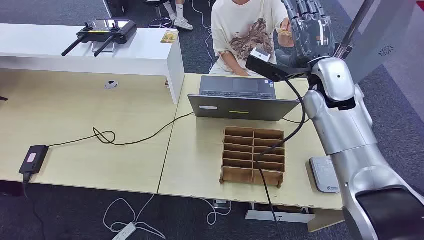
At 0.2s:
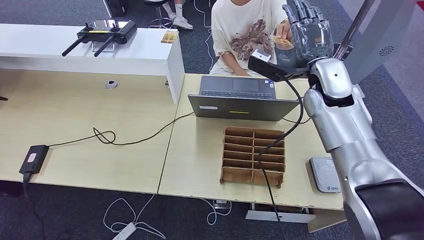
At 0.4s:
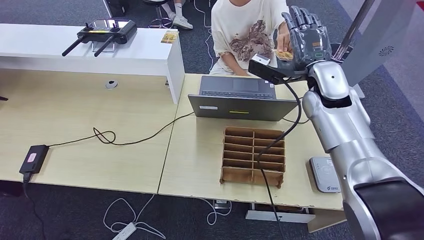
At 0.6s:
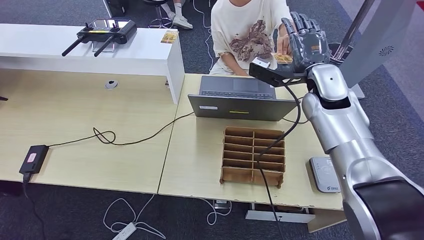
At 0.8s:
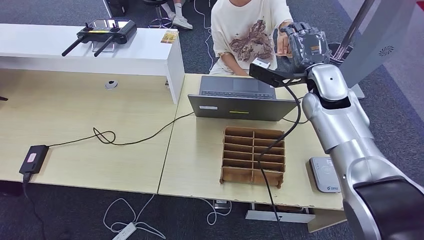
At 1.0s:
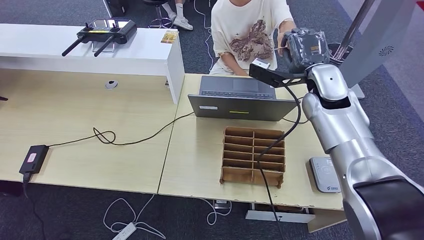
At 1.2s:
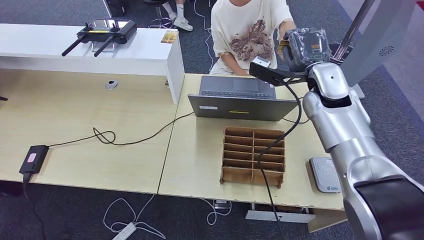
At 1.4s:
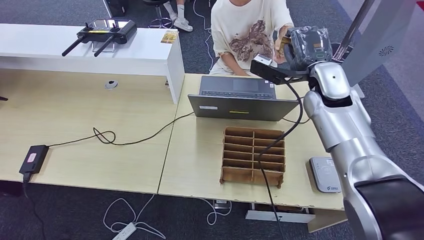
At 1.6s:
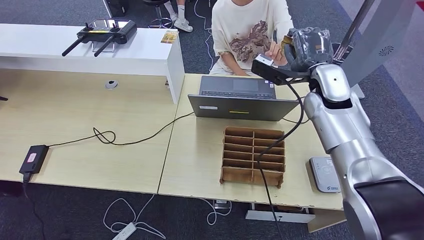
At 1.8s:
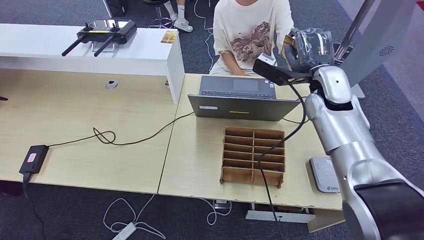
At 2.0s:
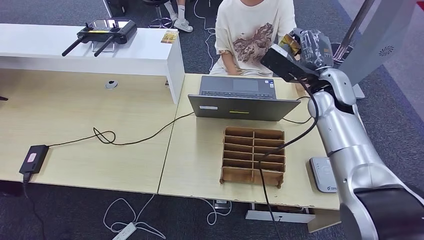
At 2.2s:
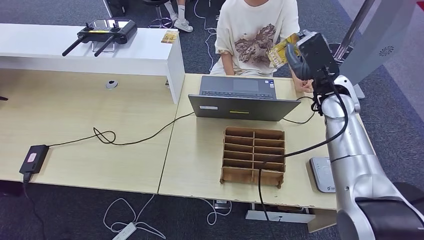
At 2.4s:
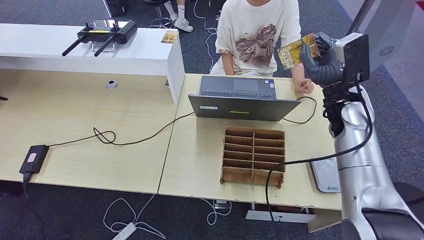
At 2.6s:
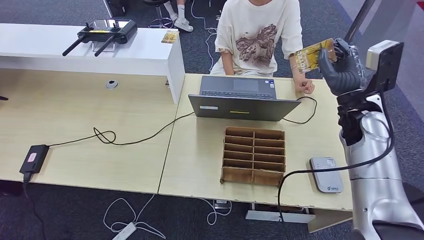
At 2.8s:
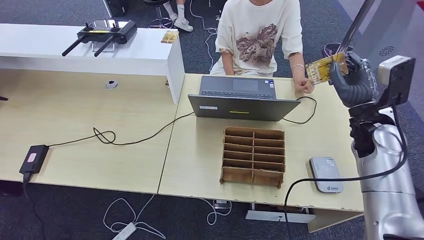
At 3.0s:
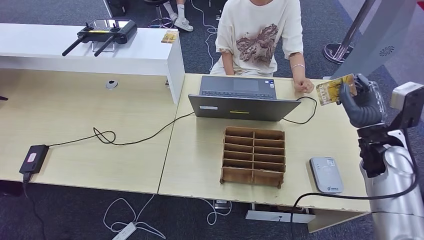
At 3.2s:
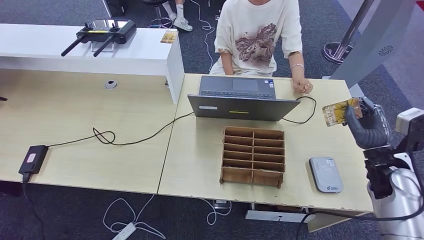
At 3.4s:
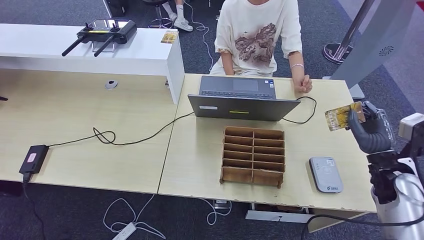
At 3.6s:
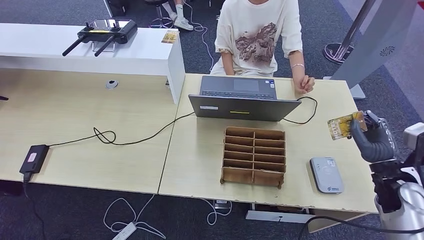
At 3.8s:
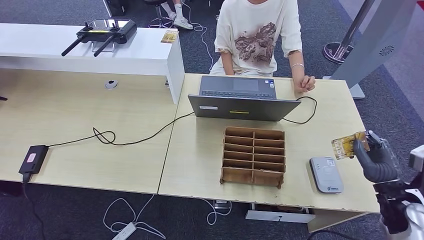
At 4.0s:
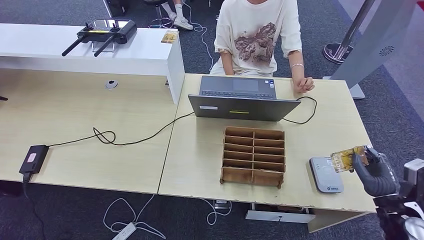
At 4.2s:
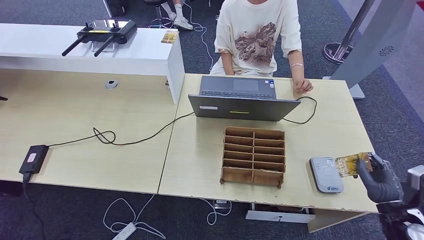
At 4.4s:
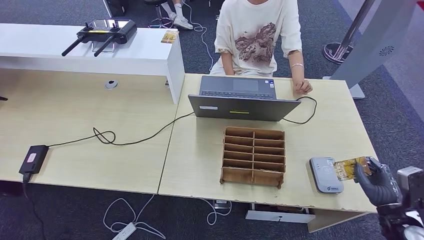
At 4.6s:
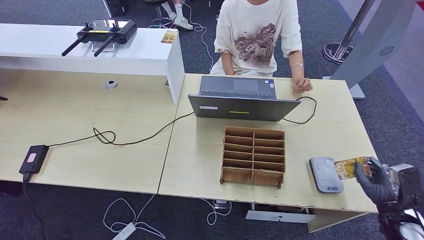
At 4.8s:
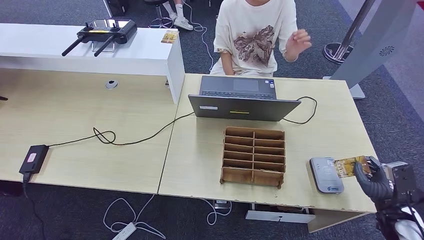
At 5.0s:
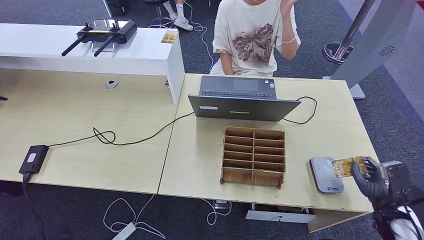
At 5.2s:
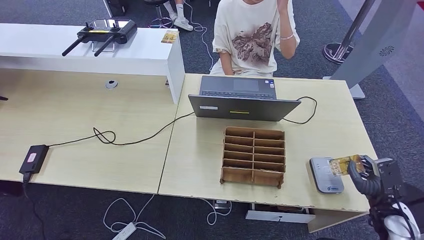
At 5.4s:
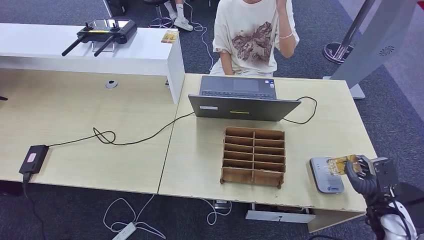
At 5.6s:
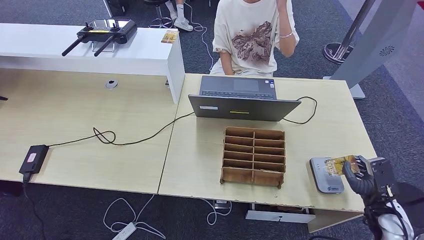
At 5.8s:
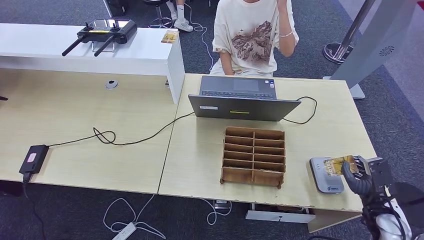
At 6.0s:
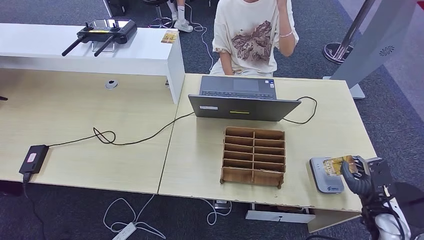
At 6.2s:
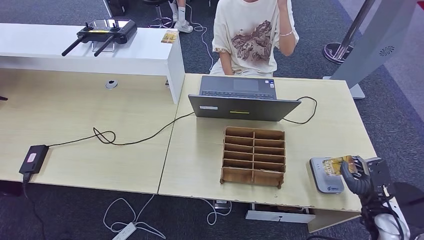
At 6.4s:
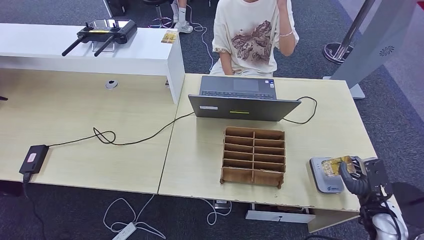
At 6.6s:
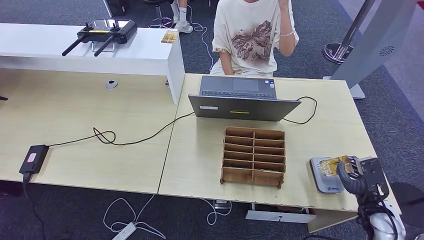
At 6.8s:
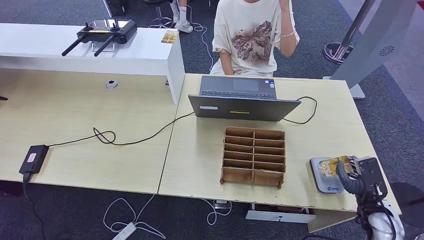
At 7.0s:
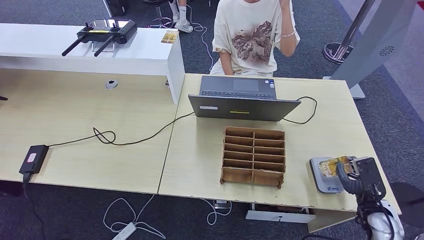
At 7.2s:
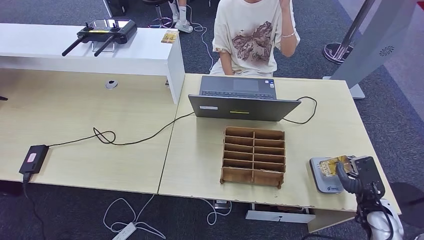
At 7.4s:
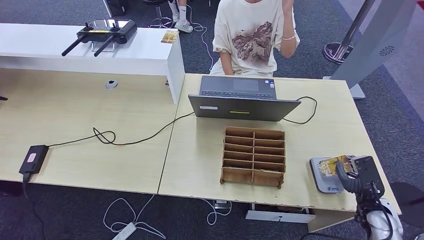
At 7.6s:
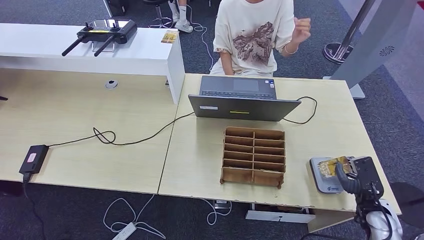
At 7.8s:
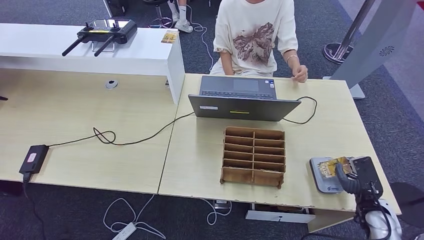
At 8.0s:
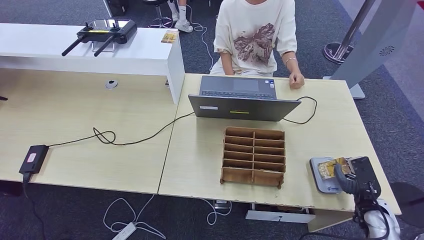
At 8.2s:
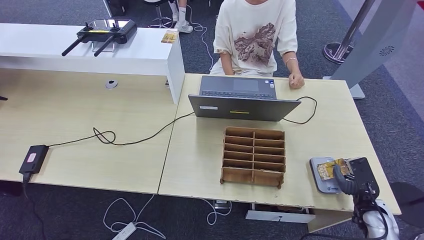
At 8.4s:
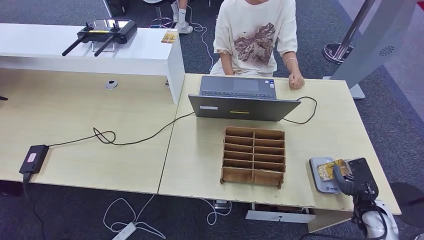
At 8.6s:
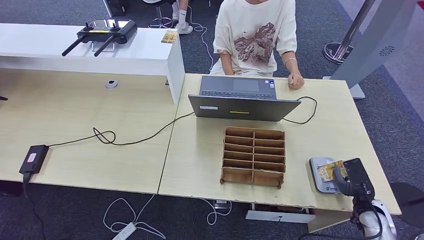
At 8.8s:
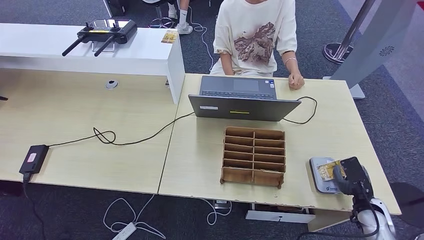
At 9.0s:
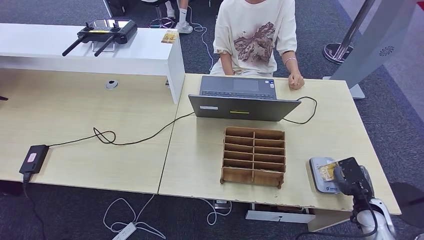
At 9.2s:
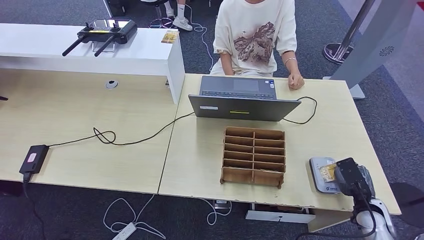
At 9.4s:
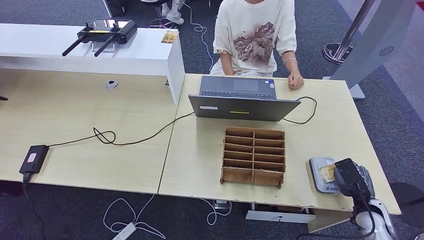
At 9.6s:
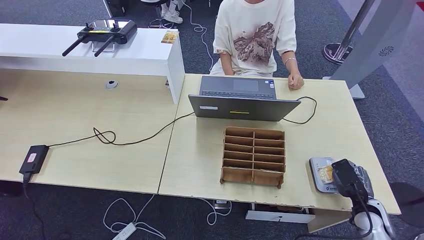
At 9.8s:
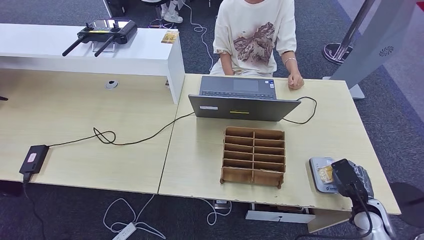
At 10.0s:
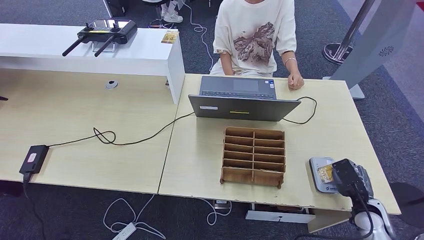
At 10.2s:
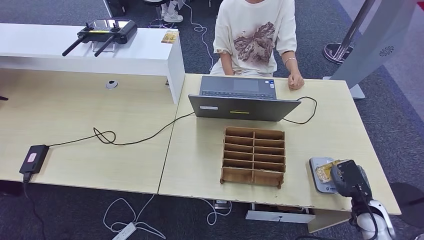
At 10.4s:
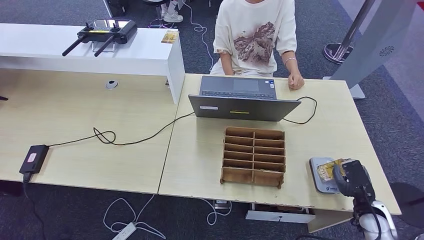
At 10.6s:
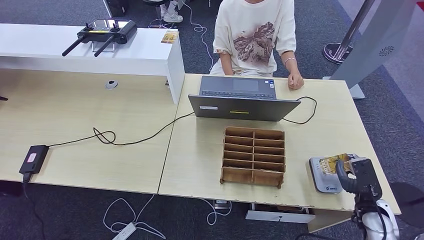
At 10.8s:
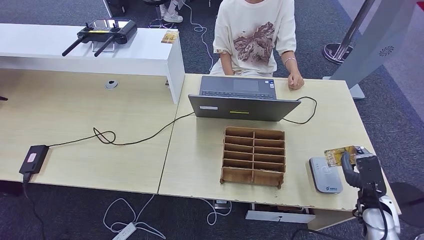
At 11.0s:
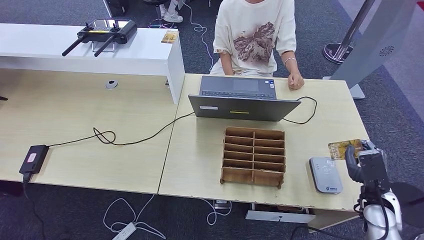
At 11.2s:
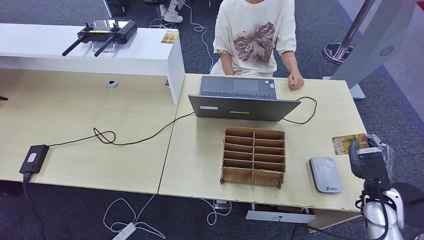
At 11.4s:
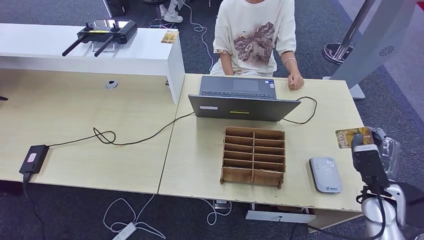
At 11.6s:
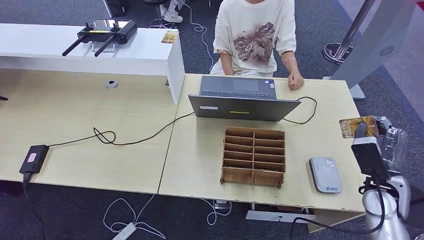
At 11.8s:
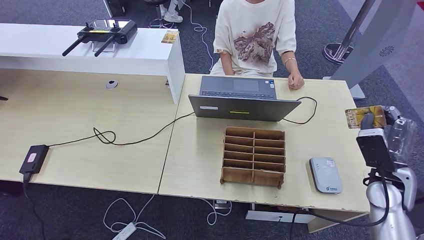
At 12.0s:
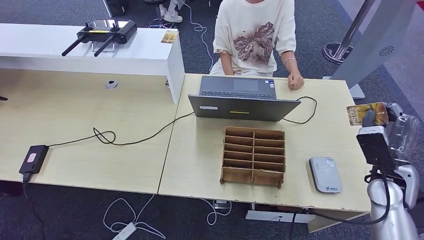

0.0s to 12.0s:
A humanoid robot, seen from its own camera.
Step, 0.0s to 3.8s: Take the ID card from the person's hand.
Step, 4.0s to 12.0s: Place the ID card on the card reader.
1.6s to 3.0s: The right hand is displaced to the right, backward and downward by about 20 cm.
3.0s to 4.4s: The right hand goes about 20 cm downward, backward and to the right.
4.4s to 6.0s: The hands move only a little.
6.0s to 7.6s: The hands stay close to where they were, moving slightly.
7.6s to 9.0s: The hands stay close to where they were, moving slightly.
9.0s to 10.4s: The hands make only small movements.
10.4s to 12.0s: The right hand goes roughly 15 cm upward.

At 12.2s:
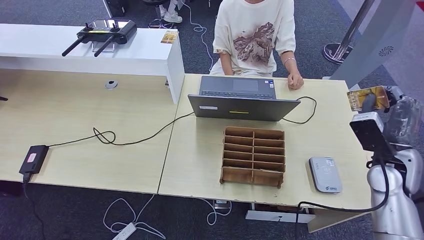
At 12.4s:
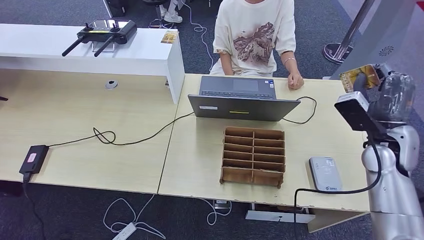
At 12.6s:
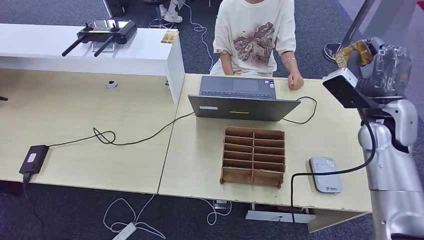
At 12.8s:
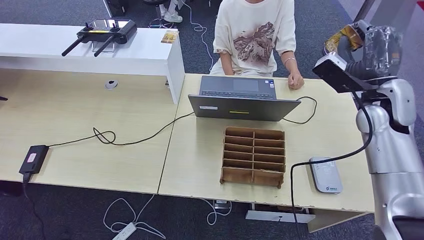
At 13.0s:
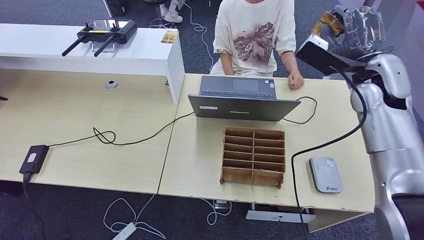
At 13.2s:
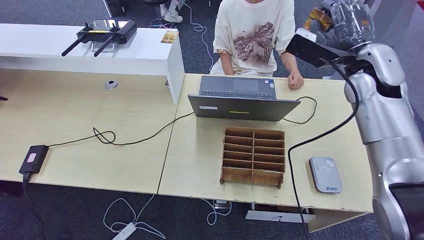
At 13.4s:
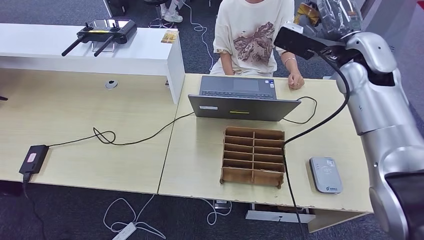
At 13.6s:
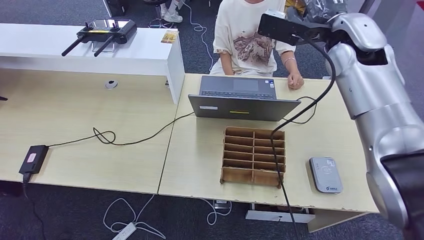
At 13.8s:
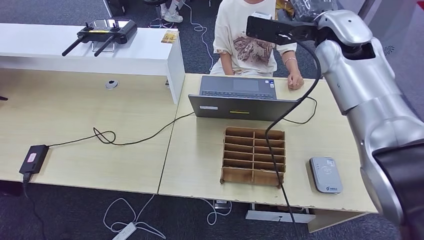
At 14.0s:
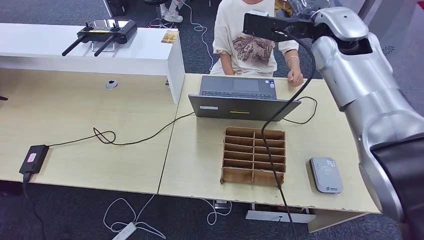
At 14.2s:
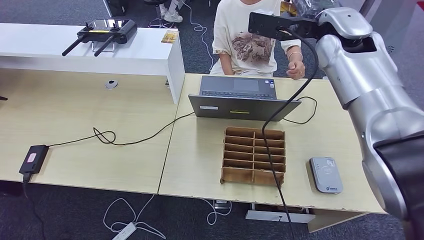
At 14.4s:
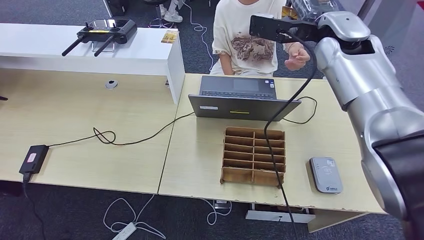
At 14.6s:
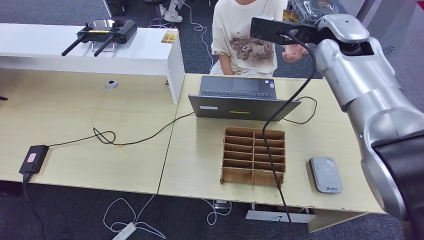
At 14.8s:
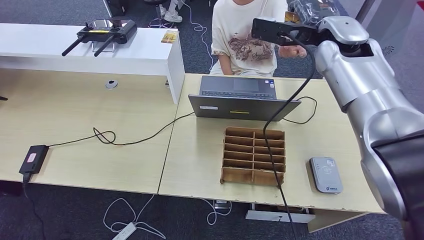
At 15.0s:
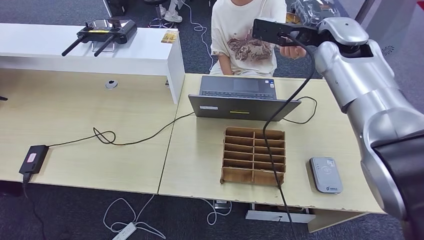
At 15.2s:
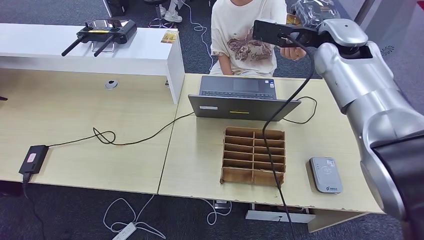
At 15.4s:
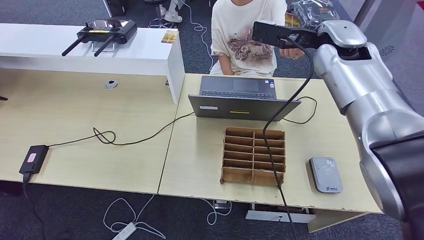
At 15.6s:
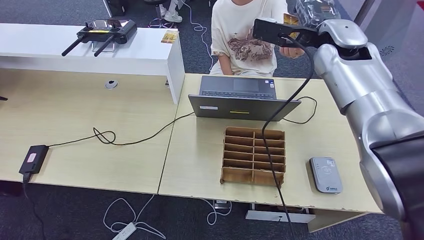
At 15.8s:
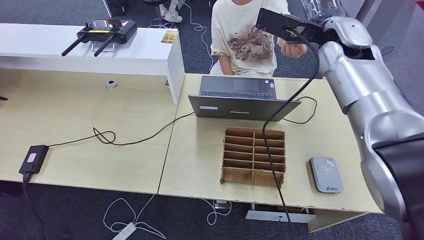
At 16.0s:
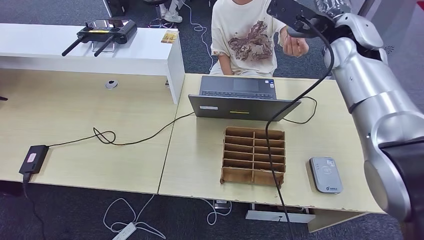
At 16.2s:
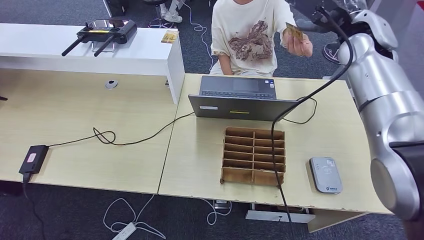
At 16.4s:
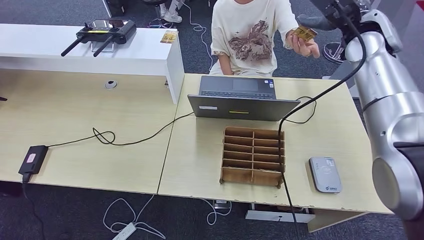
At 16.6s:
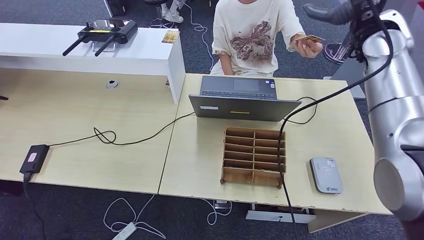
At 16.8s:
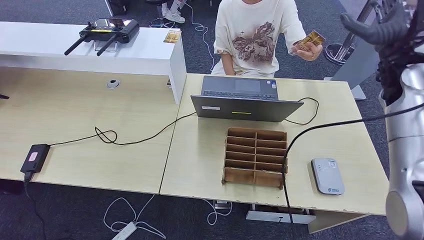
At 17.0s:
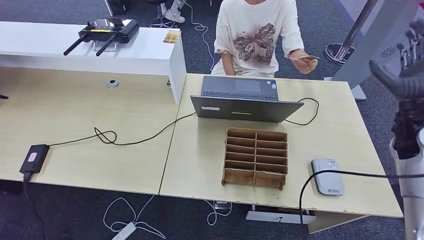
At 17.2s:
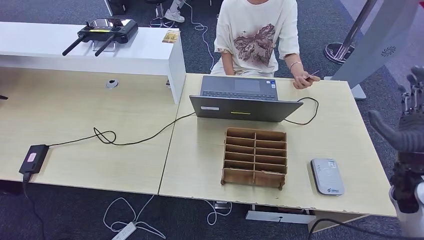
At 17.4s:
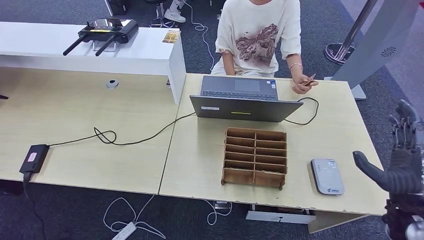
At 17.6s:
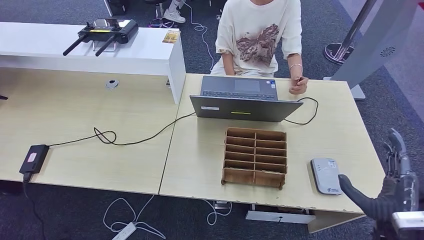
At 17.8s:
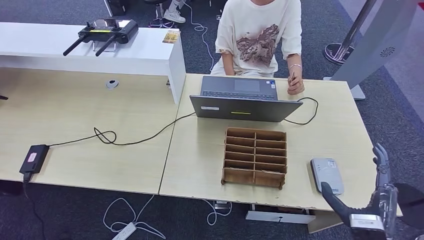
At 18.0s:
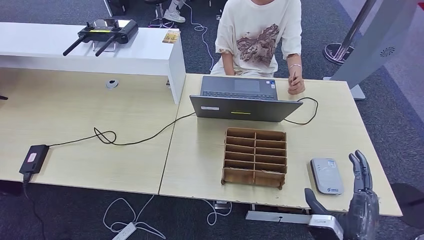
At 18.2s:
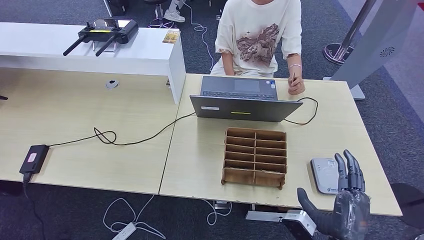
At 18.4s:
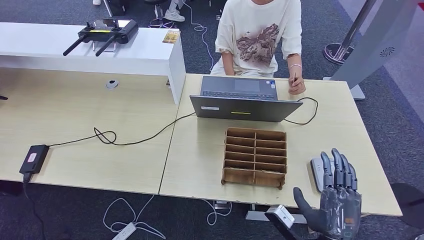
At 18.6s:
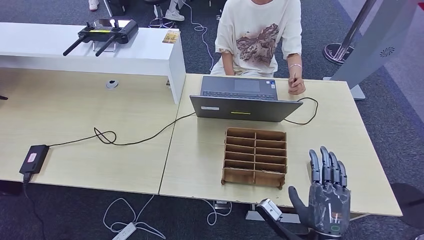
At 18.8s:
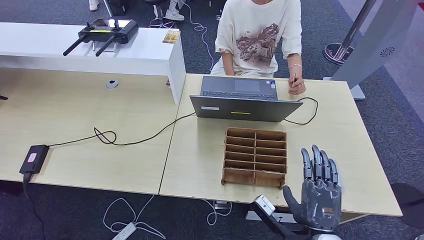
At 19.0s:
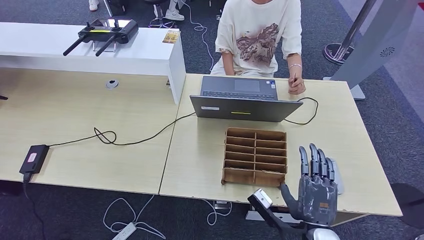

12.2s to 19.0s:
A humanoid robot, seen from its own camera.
Step, 12.2s to 17.4s: Hand the ID card to the person.
12.2s to 13.6s: The right hand is displaced upward, forward and to the left by some 25 cm.
17.6s to 19.0s: The right hand is displaced to the left by about 15 cm.
